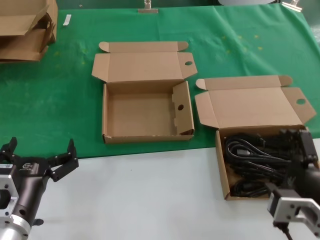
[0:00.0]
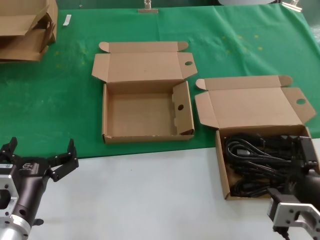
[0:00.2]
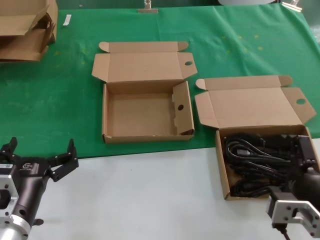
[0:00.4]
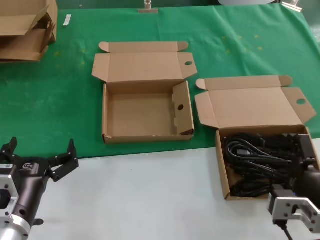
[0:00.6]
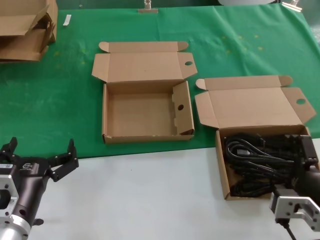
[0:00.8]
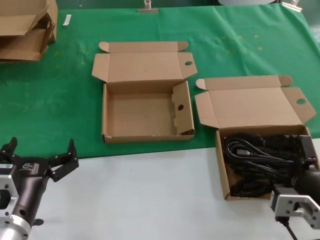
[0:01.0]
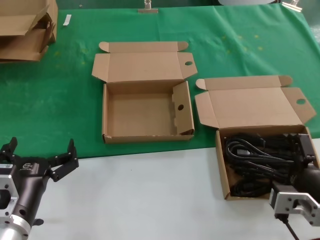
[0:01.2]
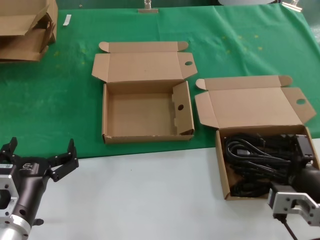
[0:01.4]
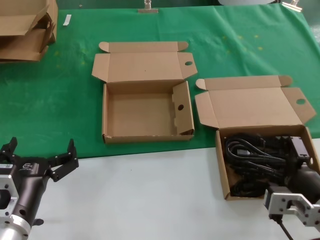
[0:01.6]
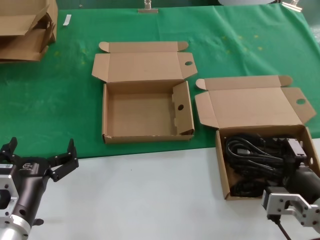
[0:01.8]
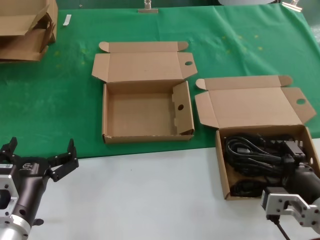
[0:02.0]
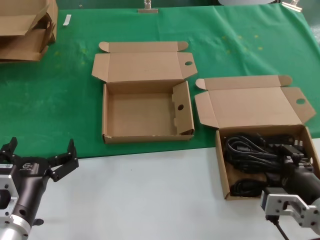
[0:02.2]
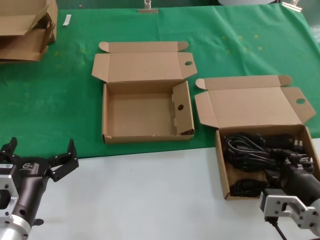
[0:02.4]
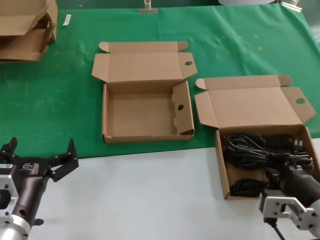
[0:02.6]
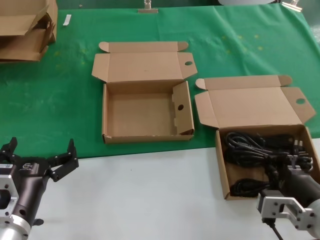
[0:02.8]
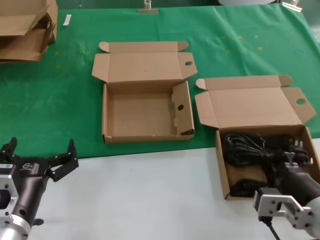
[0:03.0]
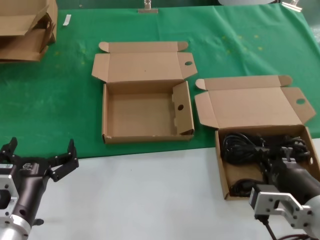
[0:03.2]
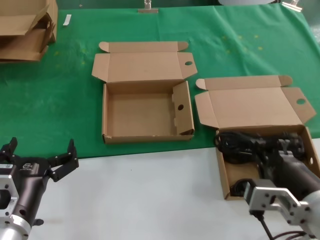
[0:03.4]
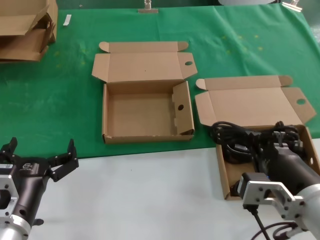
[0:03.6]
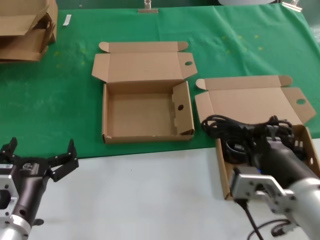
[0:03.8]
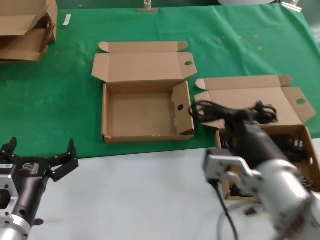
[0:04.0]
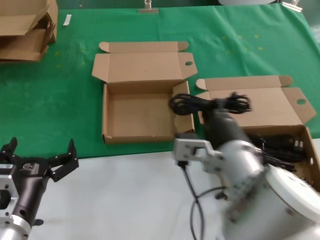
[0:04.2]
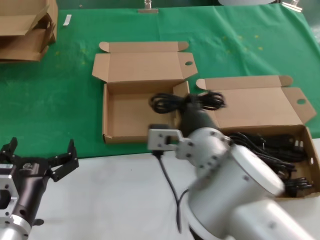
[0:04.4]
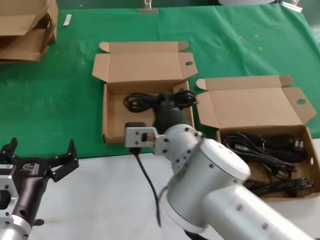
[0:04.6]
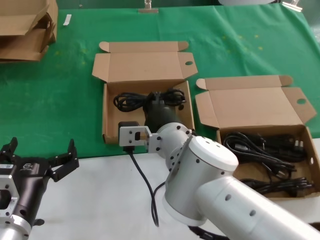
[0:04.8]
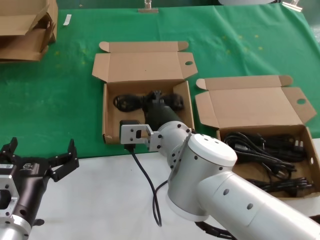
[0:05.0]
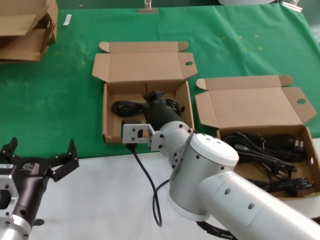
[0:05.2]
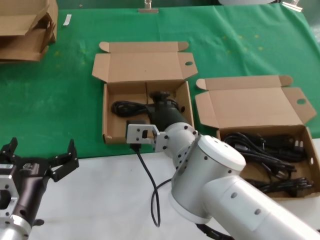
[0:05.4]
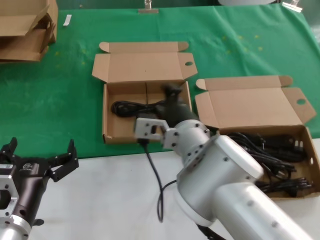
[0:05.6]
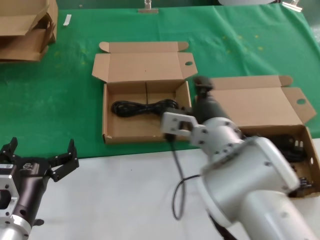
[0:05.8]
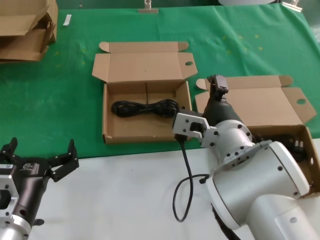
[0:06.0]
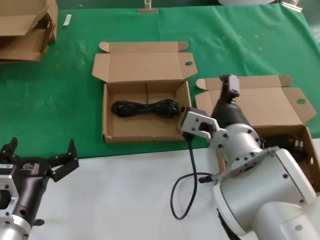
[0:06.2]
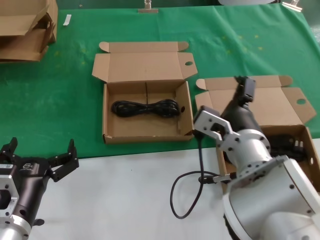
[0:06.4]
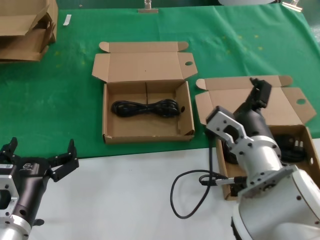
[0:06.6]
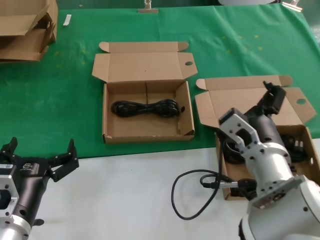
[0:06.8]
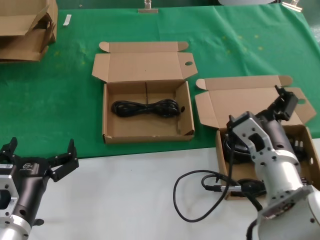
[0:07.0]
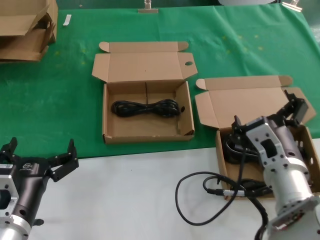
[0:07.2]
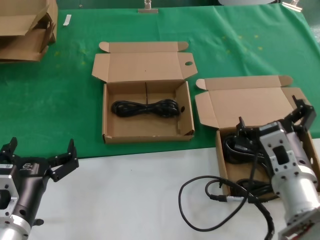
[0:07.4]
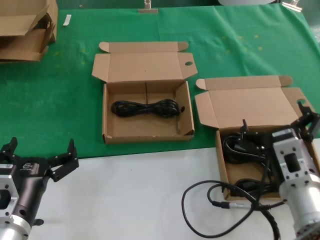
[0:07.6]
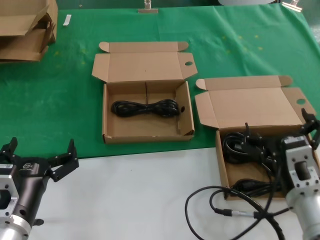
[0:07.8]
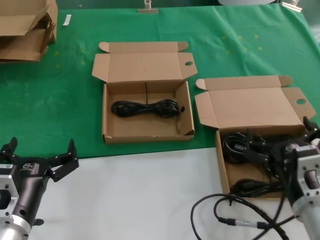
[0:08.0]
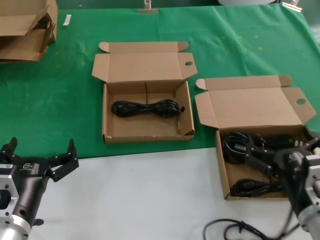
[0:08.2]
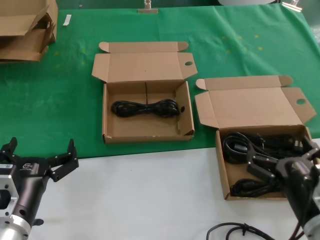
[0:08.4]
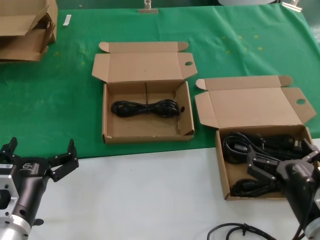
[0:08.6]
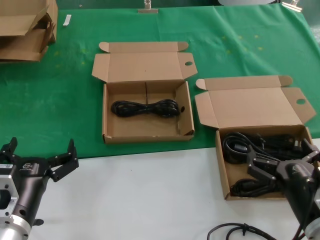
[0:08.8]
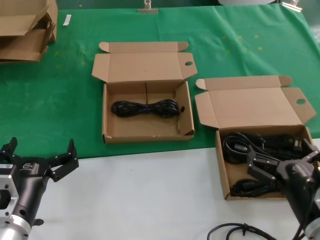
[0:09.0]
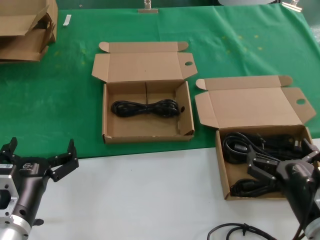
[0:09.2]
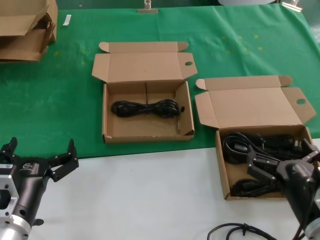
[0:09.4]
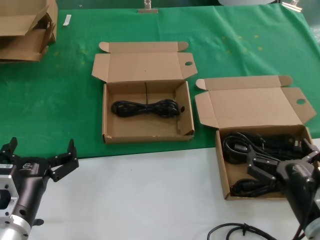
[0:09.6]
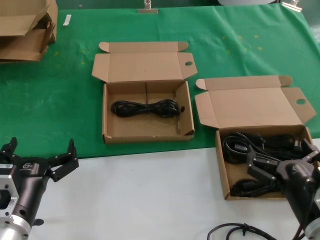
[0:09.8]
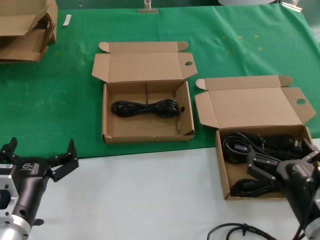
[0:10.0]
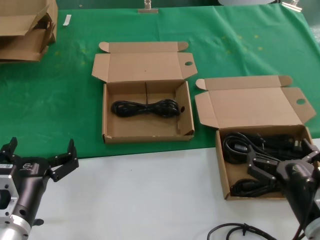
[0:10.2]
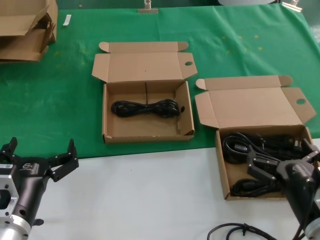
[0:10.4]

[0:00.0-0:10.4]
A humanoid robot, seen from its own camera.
Task of the whole recording: take the parts from the box containing them and put them into an empty box.
Step, 0:00.0 to 0:02.4: Grasp the data cable.
Step, 0:02.6 to 0:05.0: Place the data cable in the another box.
0:00.0 to 0:01.4: The right hand changes place by about 5 cm.
0:01.4 to 0:03.0: The hands make only small movements.
0:03.0 to 0:04.4: The right hand moves to the left and forward, some 20 cm.
0:06.0 to 0:07.4: The right hand travels to the right and downward by about 15 cm.
0:07.4 to 0:09.0: The right hand shifts about 10 cm to the right and backward.
0:09.0 to 0:10.4: Both hands stay put.

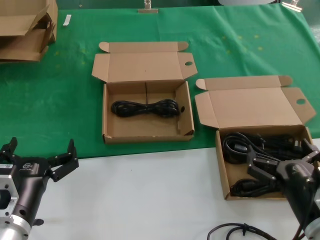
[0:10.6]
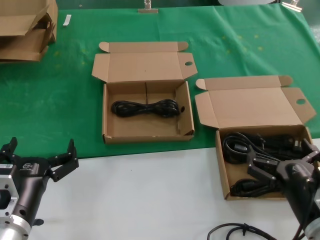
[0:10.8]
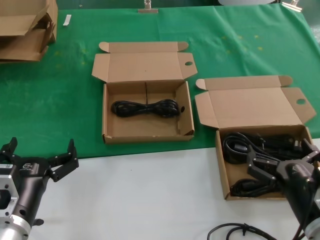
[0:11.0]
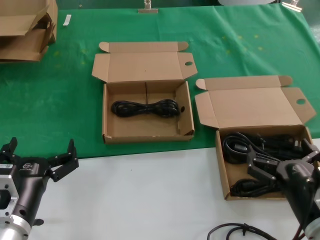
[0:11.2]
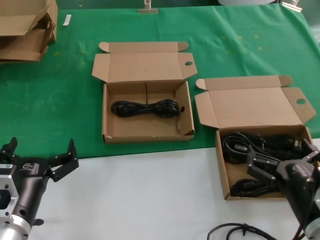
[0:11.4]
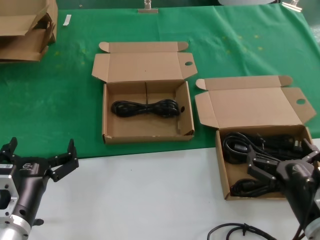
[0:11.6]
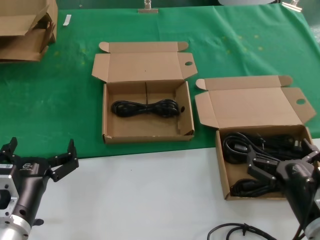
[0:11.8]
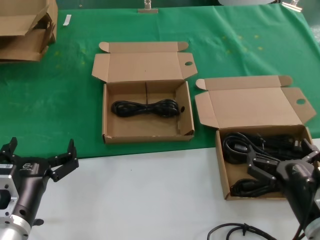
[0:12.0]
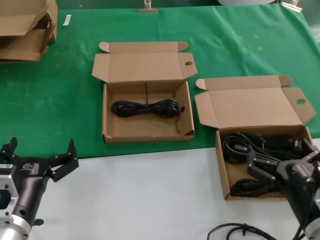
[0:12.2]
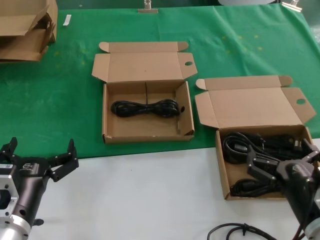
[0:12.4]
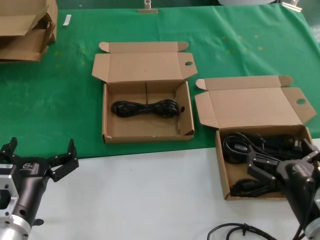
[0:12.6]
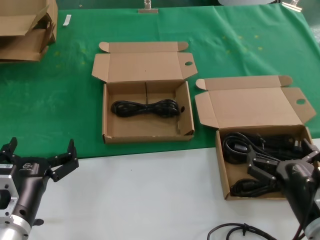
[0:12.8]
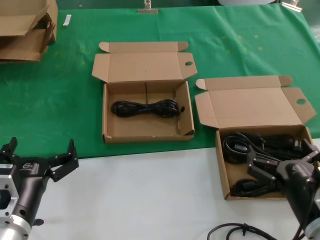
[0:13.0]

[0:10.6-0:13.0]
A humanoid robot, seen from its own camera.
Task of the whole recording: take the parts from the box containing them and put them into an empty box.
0:10.6 to 0:13.0: Both hands stay put.

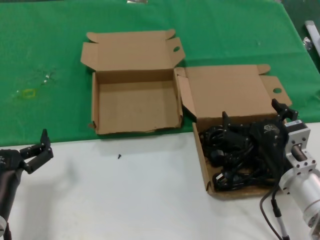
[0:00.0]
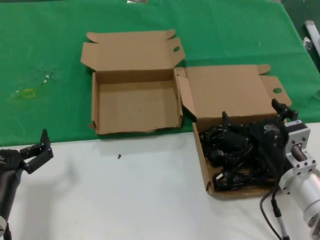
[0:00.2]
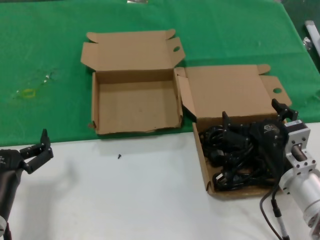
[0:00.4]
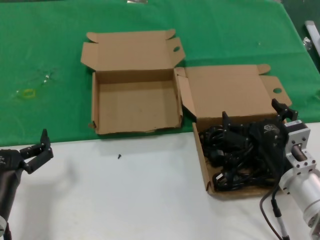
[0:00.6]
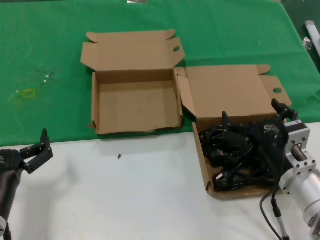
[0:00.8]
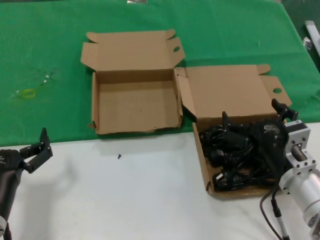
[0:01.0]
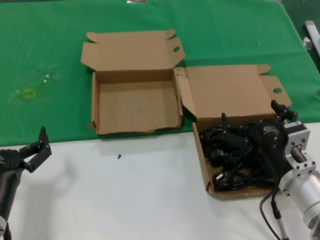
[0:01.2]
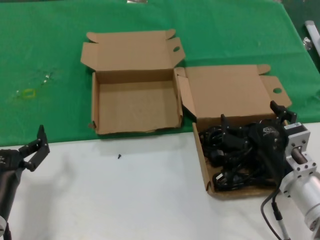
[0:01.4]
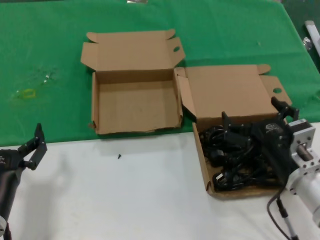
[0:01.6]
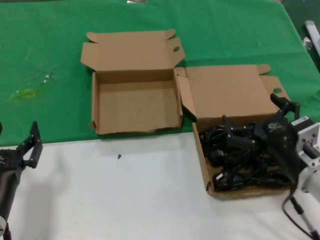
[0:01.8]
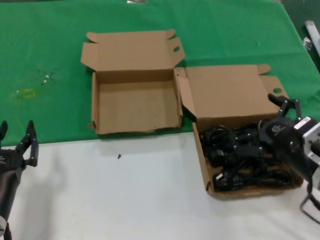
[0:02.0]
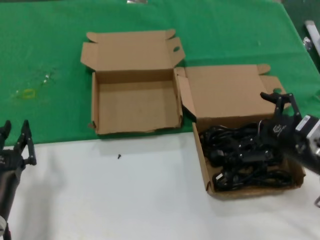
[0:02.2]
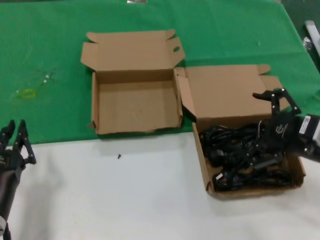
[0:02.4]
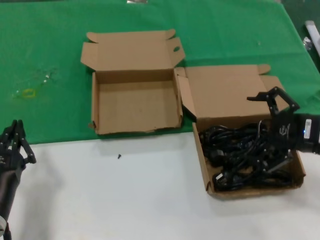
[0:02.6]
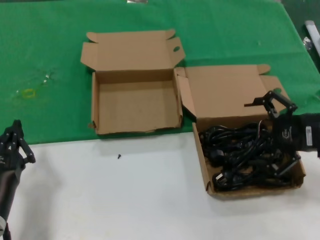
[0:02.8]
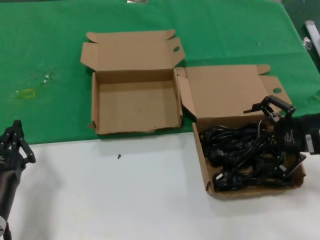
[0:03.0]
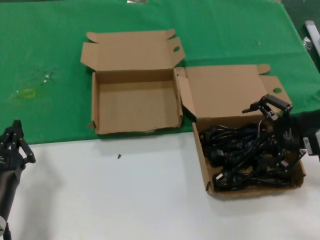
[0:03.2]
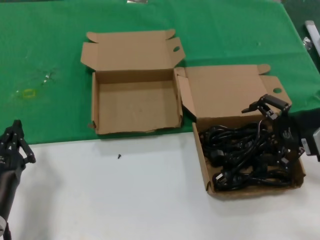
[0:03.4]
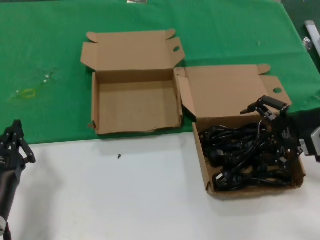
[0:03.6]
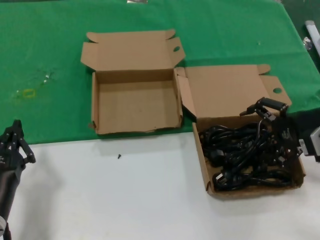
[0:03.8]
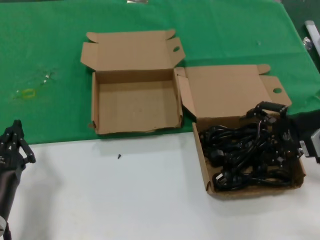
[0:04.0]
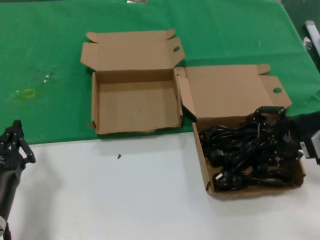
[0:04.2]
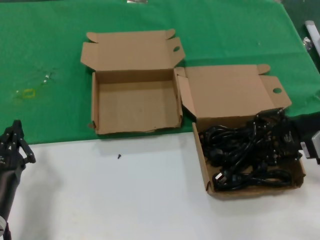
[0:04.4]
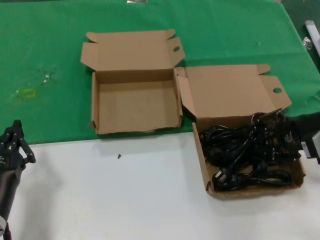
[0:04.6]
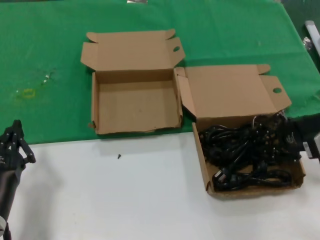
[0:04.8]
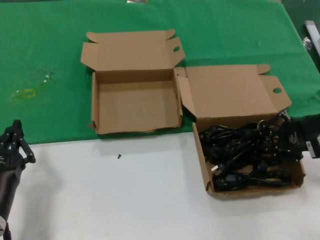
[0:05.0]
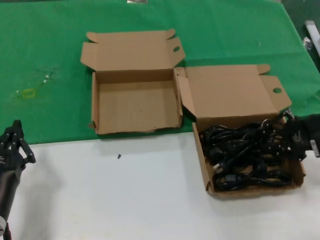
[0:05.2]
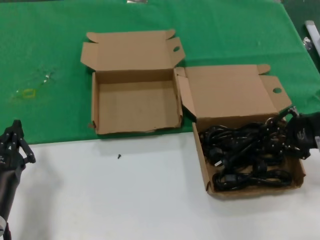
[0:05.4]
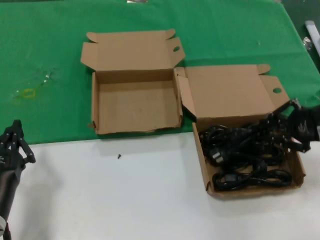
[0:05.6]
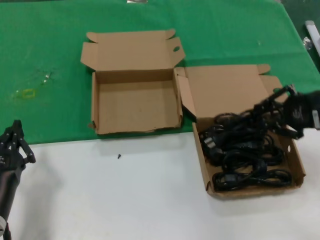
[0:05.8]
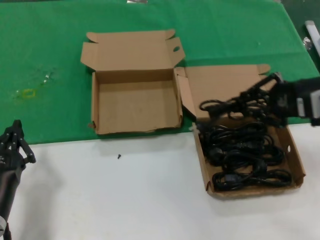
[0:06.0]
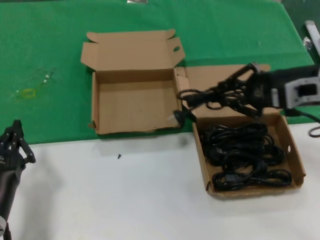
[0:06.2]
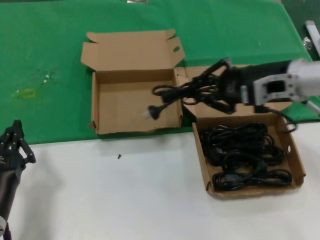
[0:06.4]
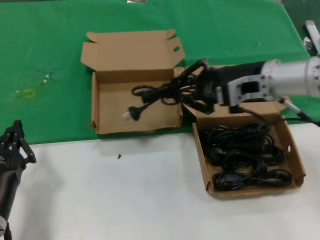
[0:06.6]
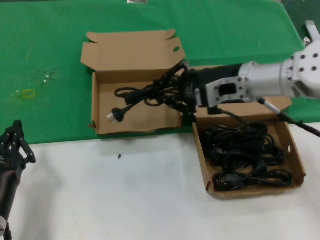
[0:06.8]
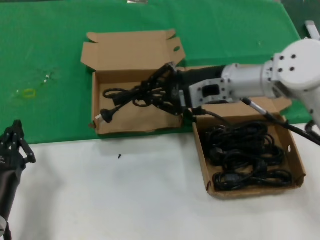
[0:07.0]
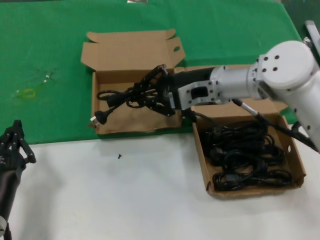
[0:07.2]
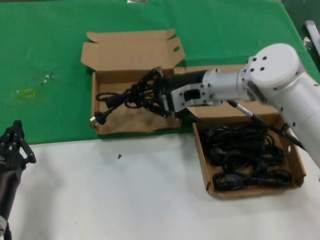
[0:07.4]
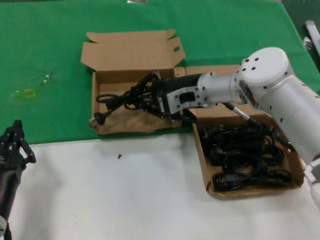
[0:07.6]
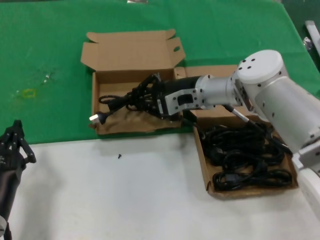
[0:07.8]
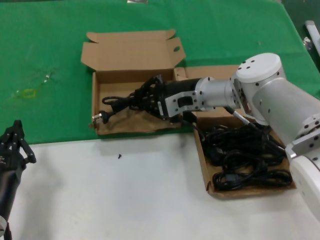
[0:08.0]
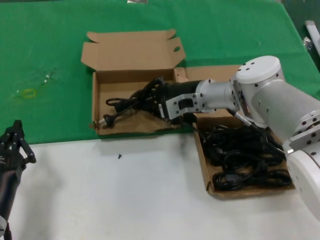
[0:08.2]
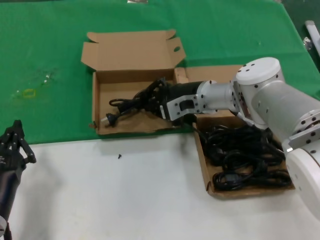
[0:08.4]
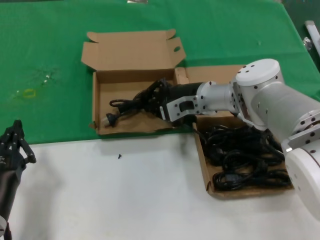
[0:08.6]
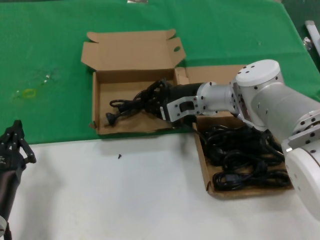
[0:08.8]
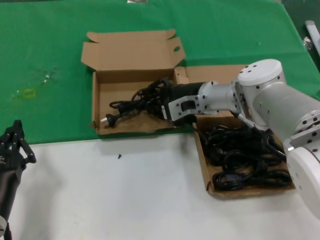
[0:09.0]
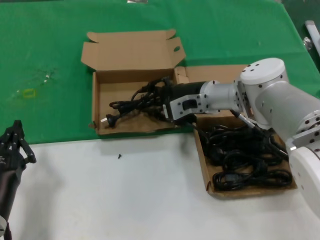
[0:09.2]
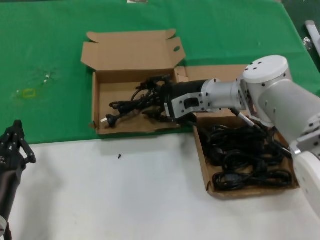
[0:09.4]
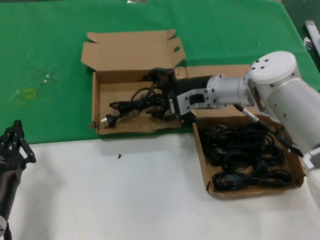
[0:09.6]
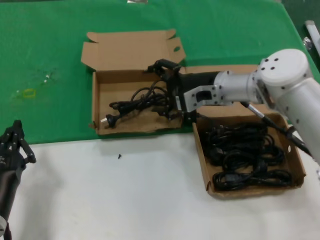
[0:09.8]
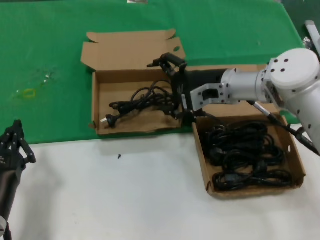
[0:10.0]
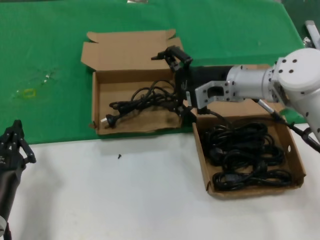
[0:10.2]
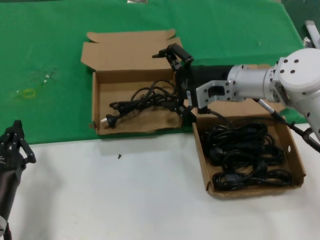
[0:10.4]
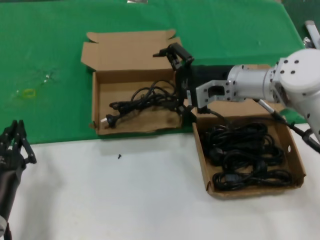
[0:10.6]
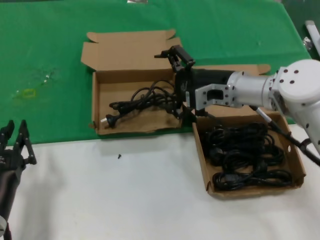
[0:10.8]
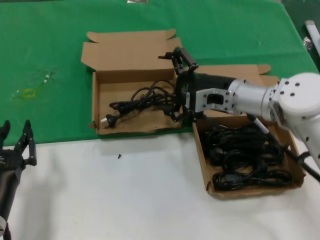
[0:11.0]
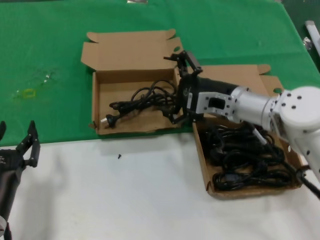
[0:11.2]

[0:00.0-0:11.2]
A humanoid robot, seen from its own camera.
Task of the whole recording: take the parts from the box containing them and put them into an empty box.
Step, 0:00.0 to 0:04.8: Grasp the data cable.
Step, 0:05.0 to 0:09.4: Place the data cable in the another box.
0:00.0 to 0:01.6: Both hands stay put.
0:01.6 to 0:03.2: The right hand travels upward, to the right and forward by some 20 cm.
0:03.2 to 0:04.8: The hands make only small movements.
0:04.8 to 0:06.4: The right hand moves to the left and upward, some 10 cm.
0:06.4 to 0:08.0: The right hand is displaced to the left, forward and downward by about 20 cm.
0:08.0 to 0:09.6: There are only small adjustments of the hands.
0:09.6 to 0:11.2: The right hand shifts roughly 5 cm backward.